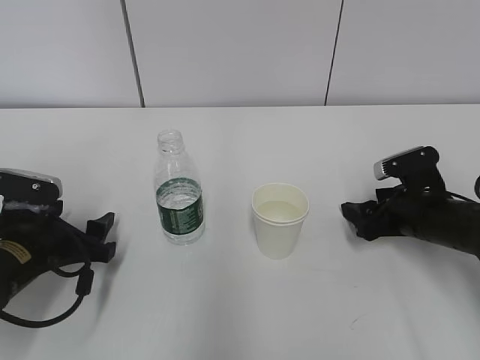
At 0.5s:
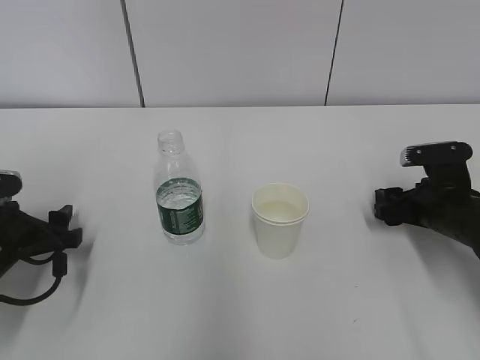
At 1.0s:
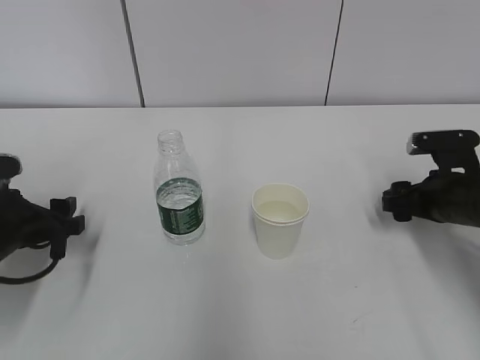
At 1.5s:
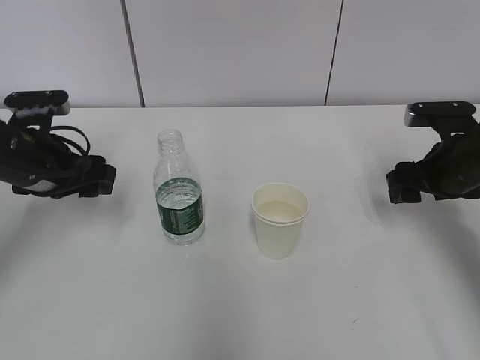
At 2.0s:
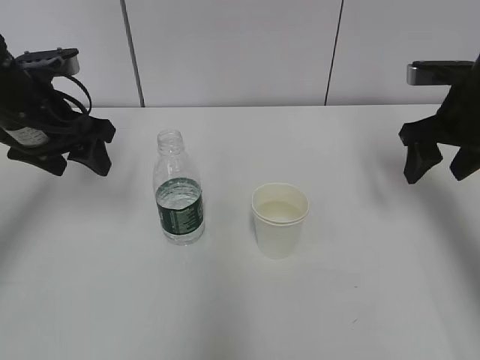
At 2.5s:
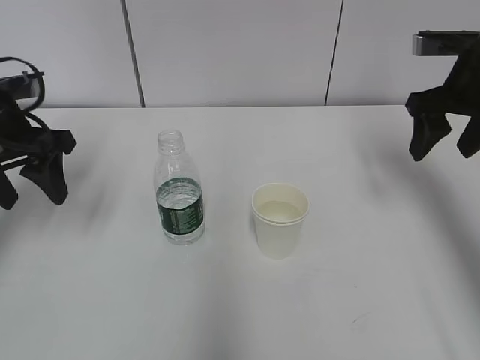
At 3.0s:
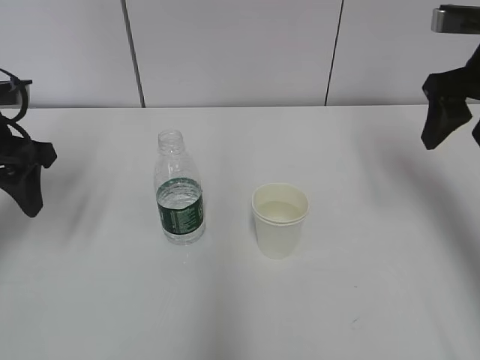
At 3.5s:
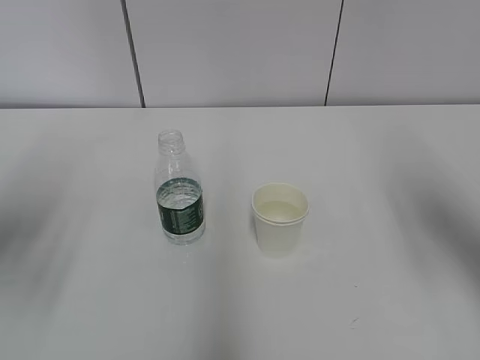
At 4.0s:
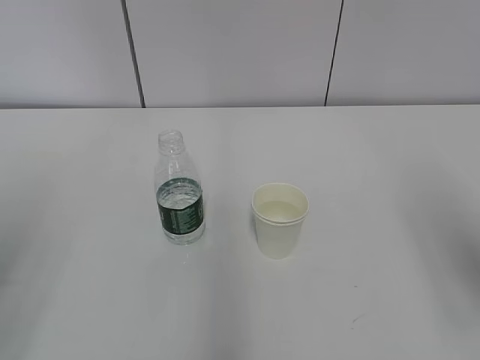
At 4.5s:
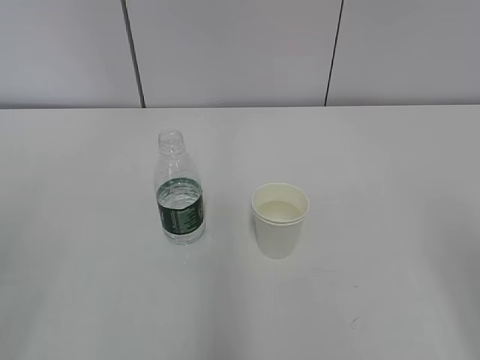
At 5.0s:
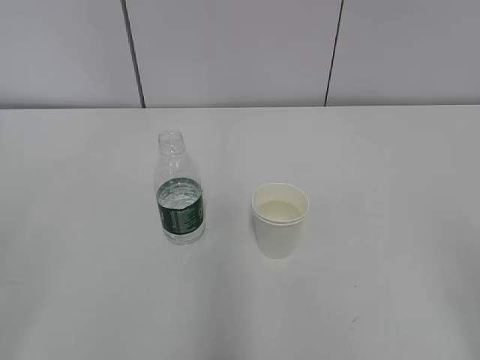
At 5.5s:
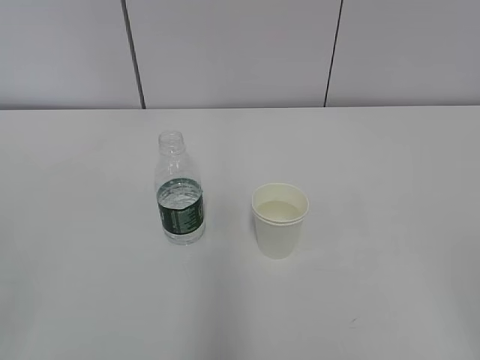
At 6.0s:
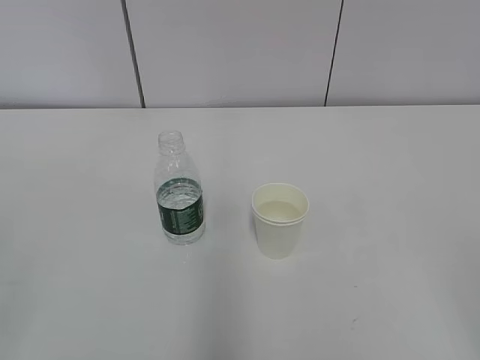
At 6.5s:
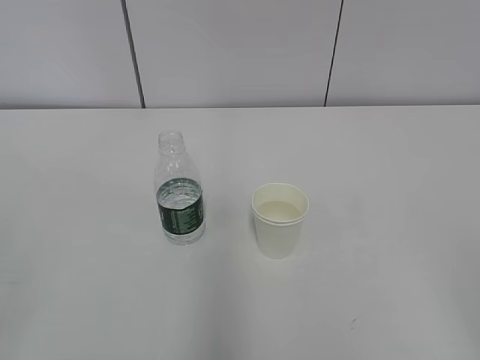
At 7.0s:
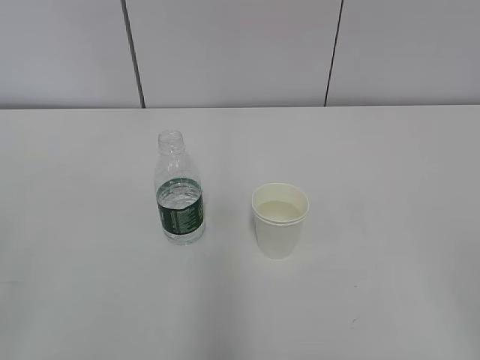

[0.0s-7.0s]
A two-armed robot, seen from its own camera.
0.0s to 2.0s: The right gripper moves upward, some 15 cm. Meanwhile the left gripper goes some 20 cm upward and forward.
2.0s to 3.5s: The right gripper is displaced backward and upward by approximately 15 cm, while the left gripper moves backward and to the left, approximately 15 cm.
3.5s to 5.0s: The two grippers go some 20 cm backward.

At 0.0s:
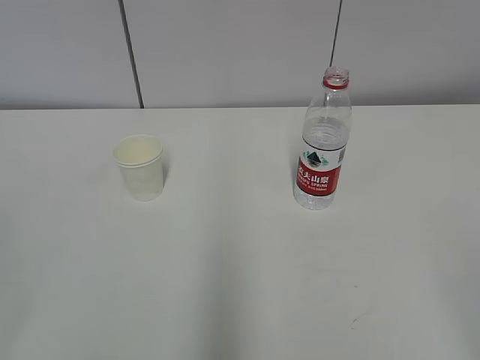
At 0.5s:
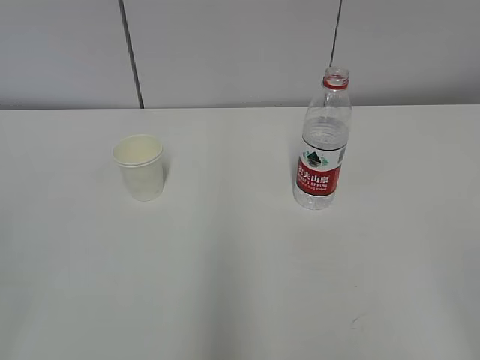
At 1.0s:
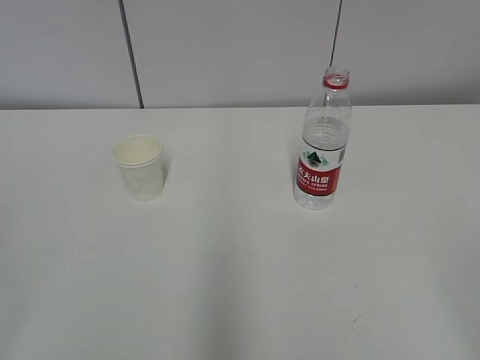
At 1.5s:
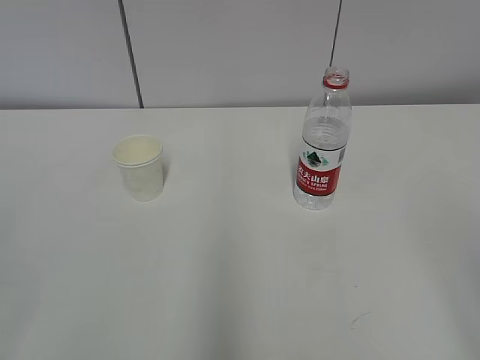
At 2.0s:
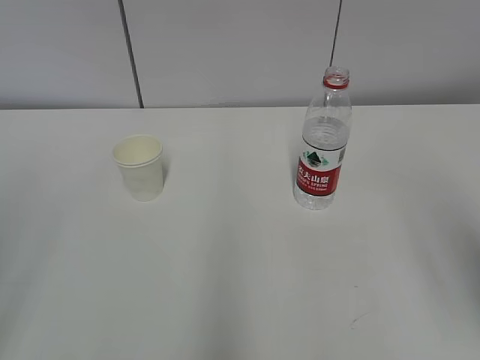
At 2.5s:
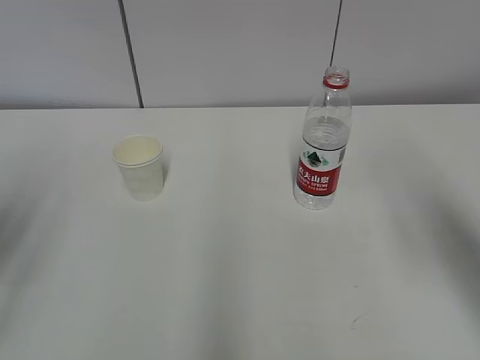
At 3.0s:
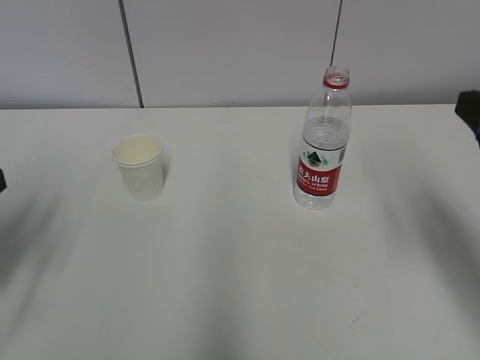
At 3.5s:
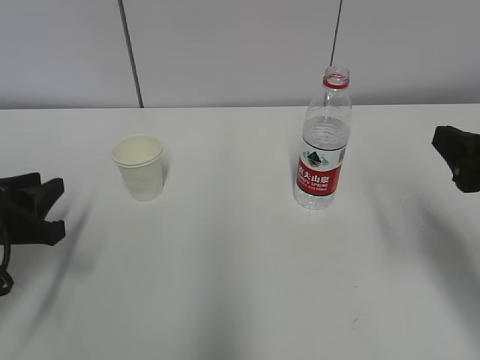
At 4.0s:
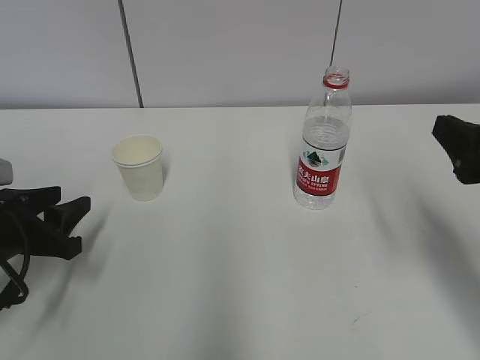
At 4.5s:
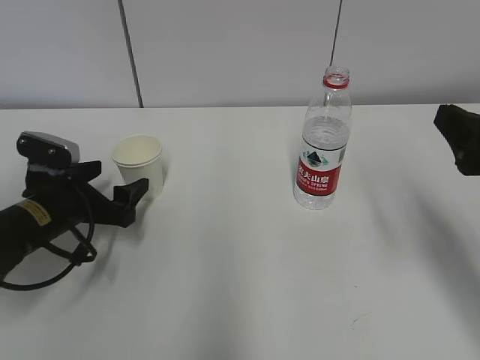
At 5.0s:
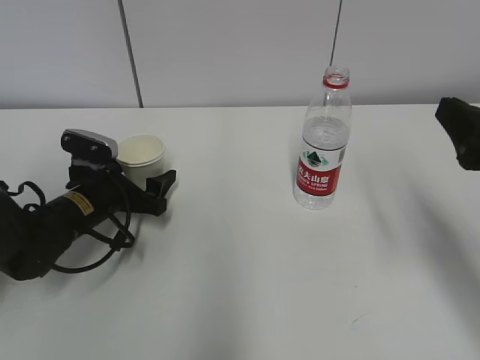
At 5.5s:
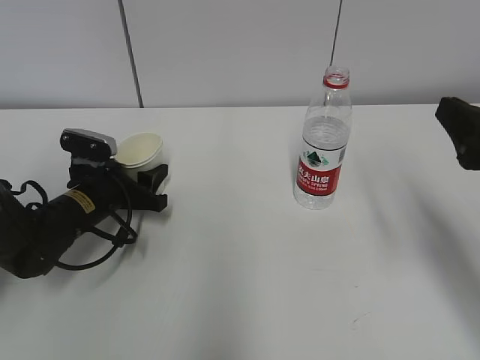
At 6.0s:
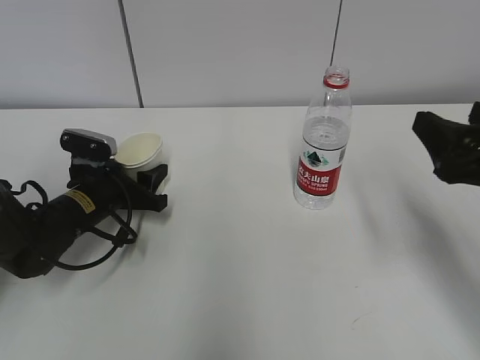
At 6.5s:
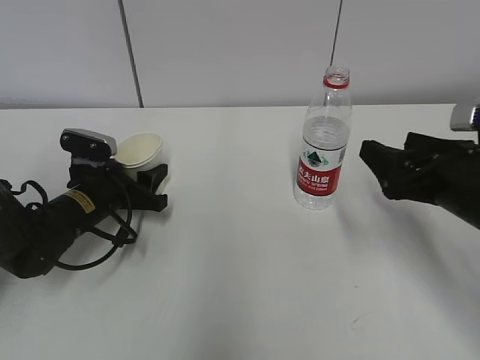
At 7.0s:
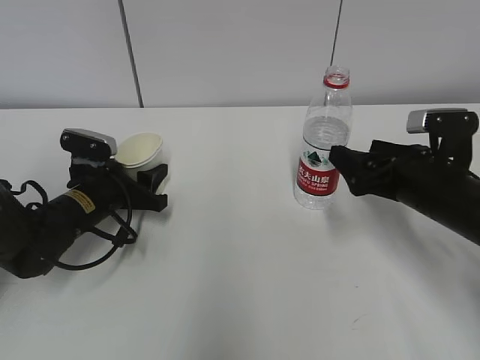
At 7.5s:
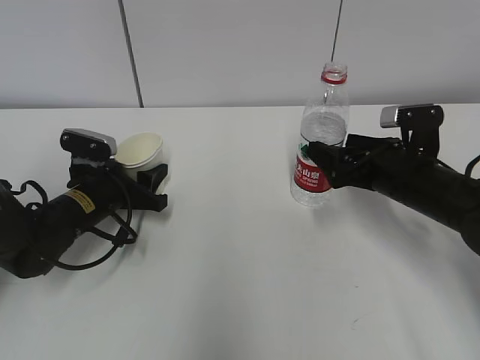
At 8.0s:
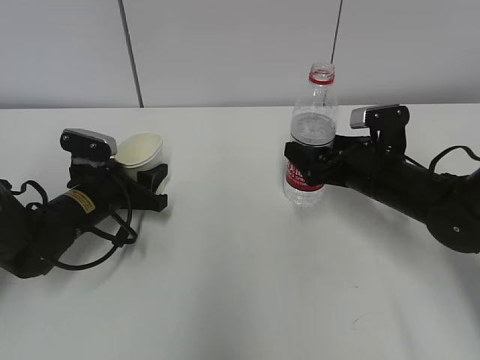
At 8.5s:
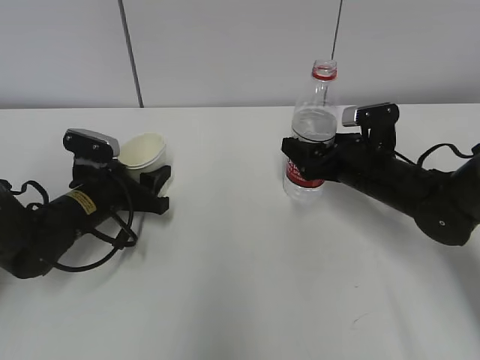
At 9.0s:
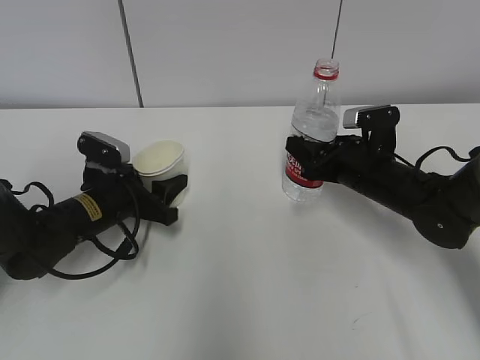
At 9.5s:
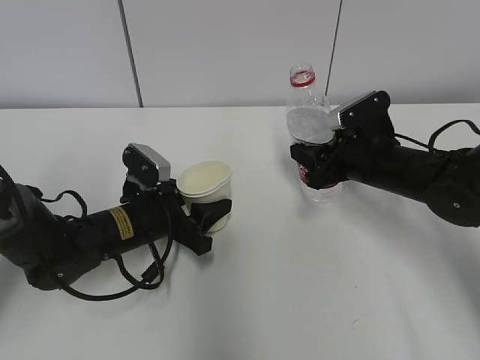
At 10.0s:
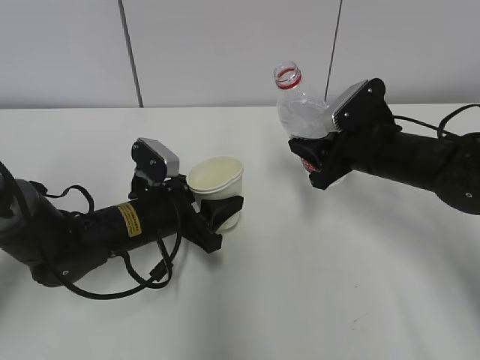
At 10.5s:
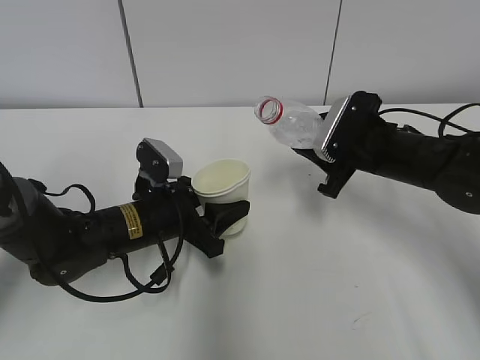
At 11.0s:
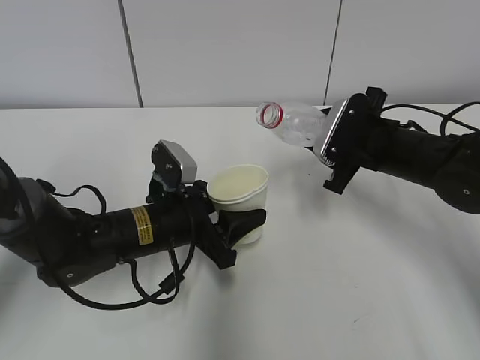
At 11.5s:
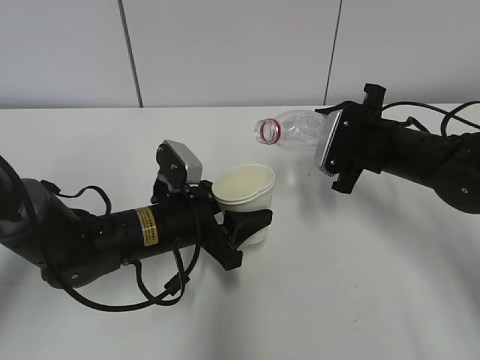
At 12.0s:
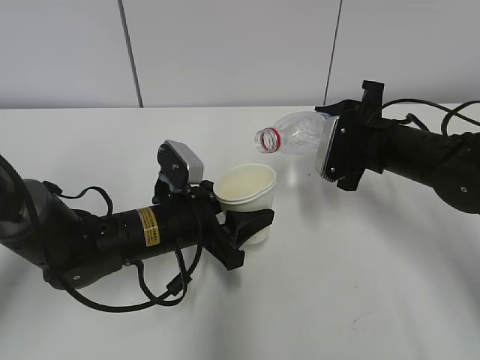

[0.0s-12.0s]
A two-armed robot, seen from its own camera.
Step, 0.0s to 7.0s: Grab the paper cup with the left hand.
Step, 8.0s to 11.0s: Lift the paper cup with the left hand.
2.0s to 4.0s: The right gripper heads forward and downward, covering approximately 15 cm. The left gripper is displaced downward and forward by roughly 30 cm, and opens its fingers.
4.0s to 6.0s: The left gripper travels forward and to the right by approximately 15 cm, and opens and closes again.
6.0s to 8.0s: The right gripper heads forward and downward, covering some 20 cm.
8.0s to 10.0s: The right gripper closes. Meanwhile the left gripper shifts approximately 10 cm to the right.

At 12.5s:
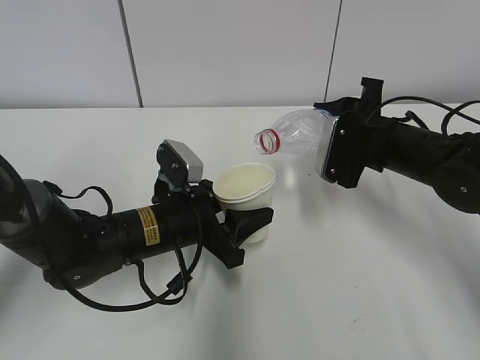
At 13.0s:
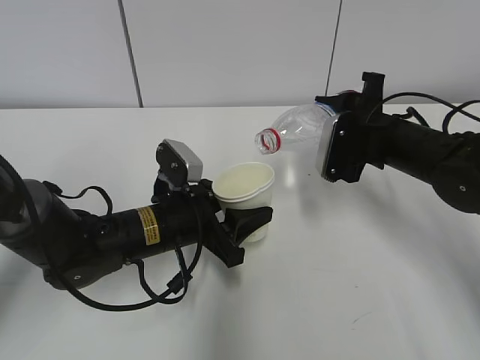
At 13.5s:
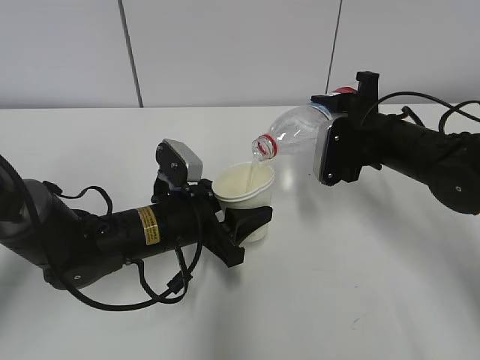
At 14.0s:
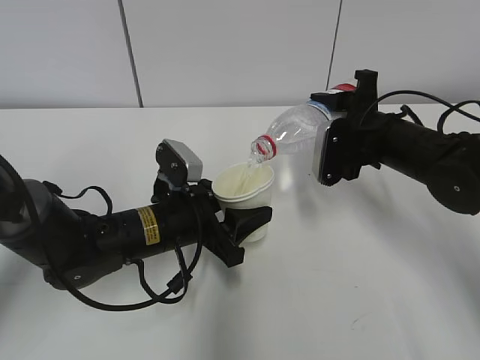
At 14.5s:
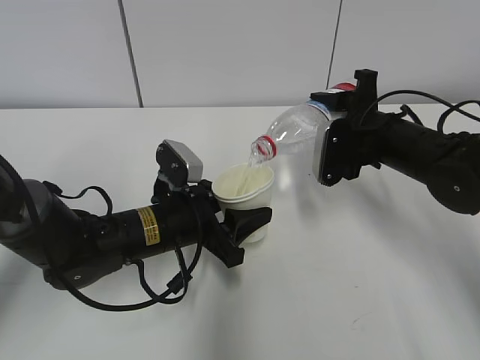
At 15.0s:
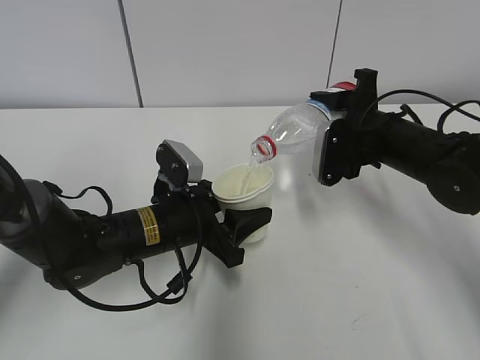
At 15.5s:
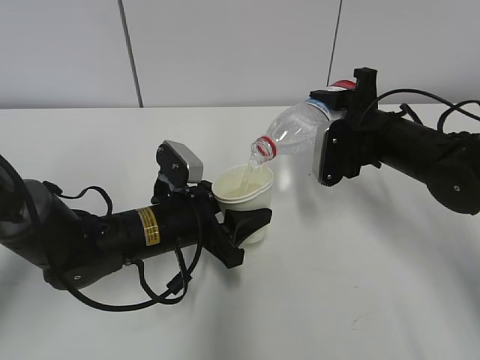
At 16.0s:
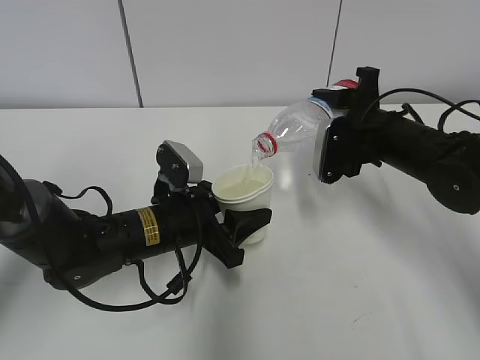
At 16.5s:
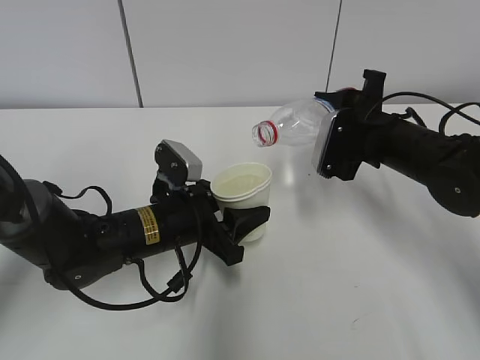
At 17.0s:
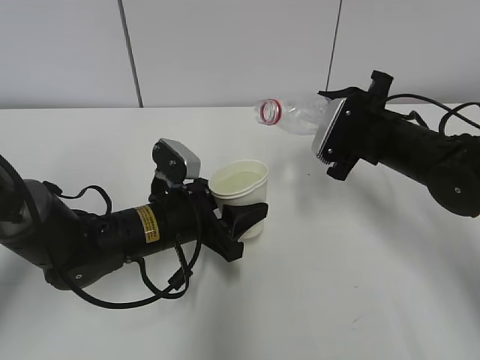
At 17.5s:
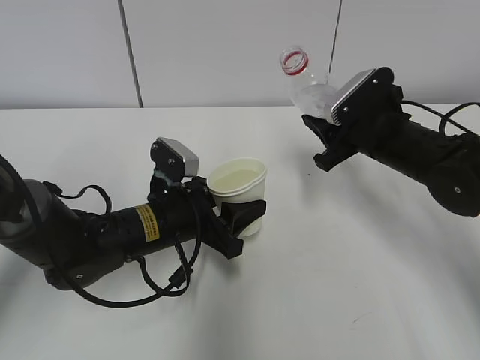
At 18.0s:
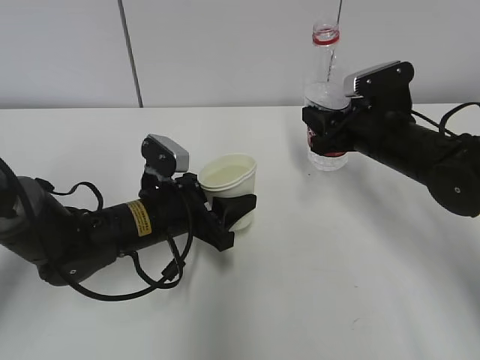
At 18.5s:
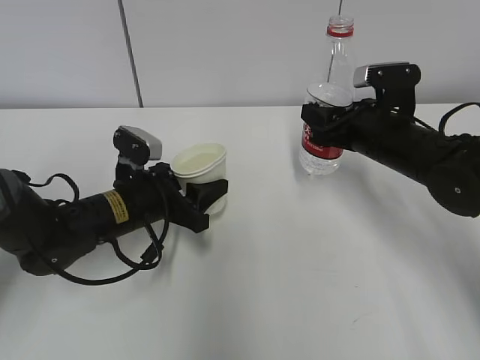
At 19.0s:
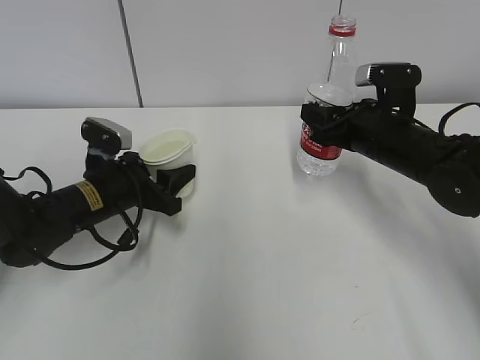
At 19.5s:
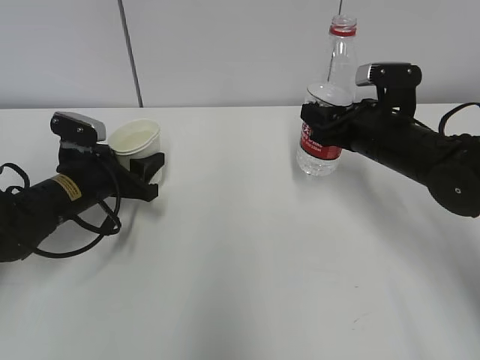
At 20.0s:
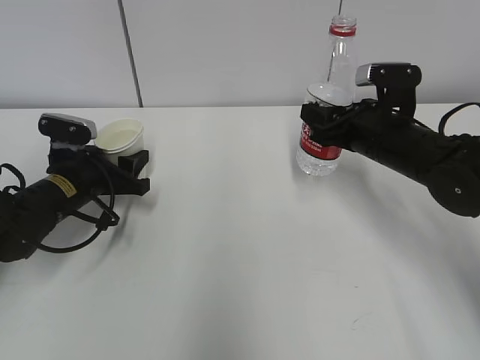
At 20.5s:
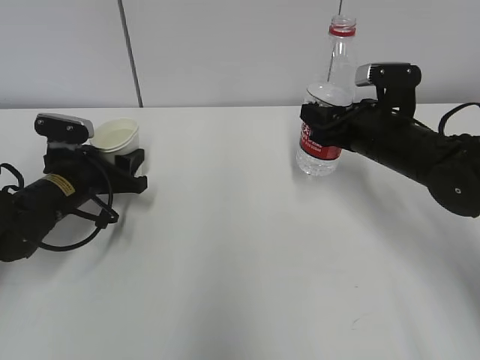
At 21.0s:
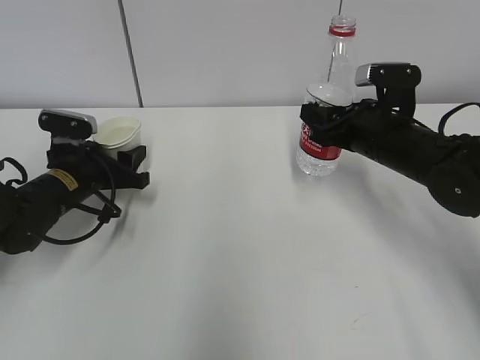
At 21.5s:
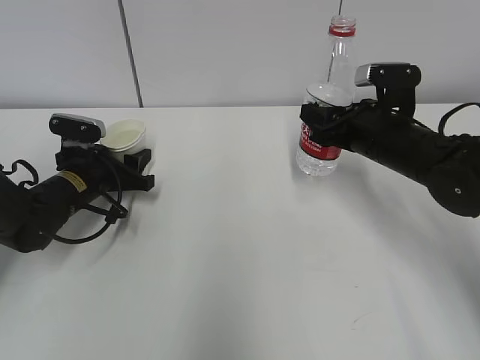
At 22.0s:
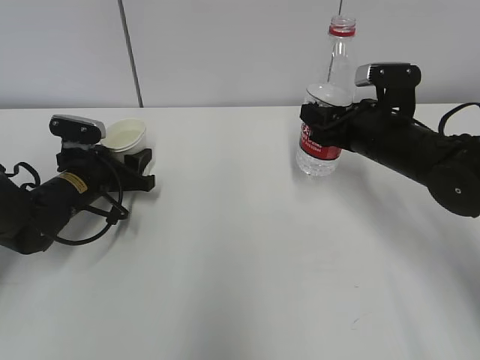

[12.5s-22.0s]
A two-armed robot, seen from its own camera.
Step, 15.5s to 18.5s: Place the paper cup with the left hand.
12.5s to 16.5s: The grippers stay close to where they were, moving slightly.
18.0s to 20.0s: The left gripper goes some 15 cm to the left and forward.
20.0s to 22.0s: The grippers move only a little.
